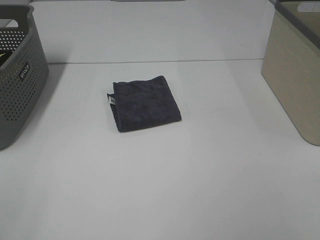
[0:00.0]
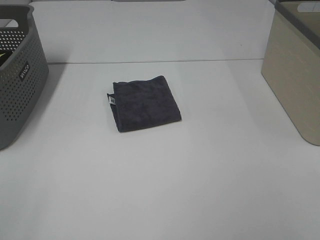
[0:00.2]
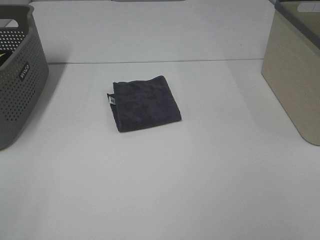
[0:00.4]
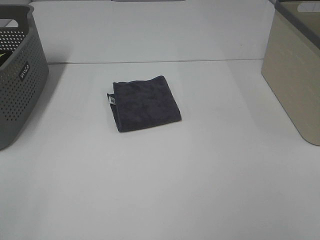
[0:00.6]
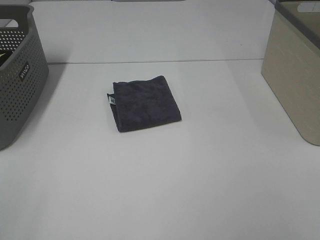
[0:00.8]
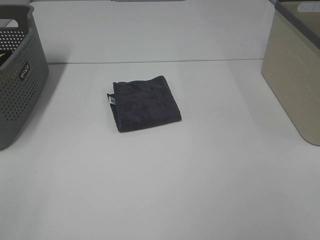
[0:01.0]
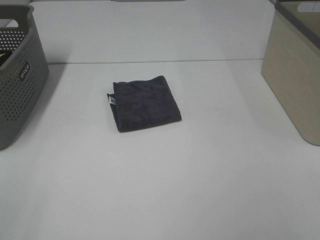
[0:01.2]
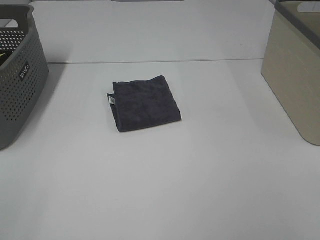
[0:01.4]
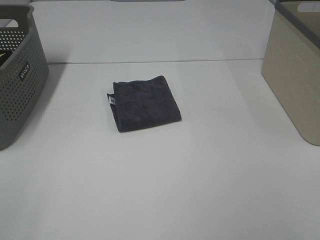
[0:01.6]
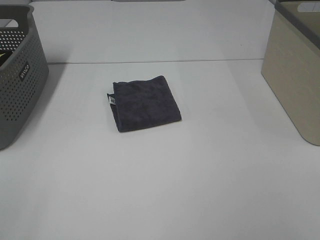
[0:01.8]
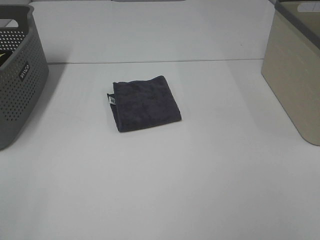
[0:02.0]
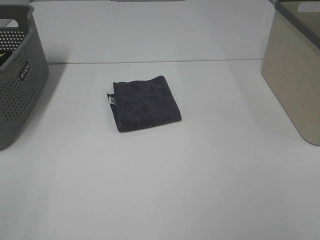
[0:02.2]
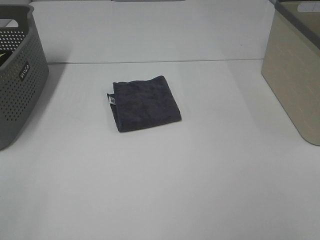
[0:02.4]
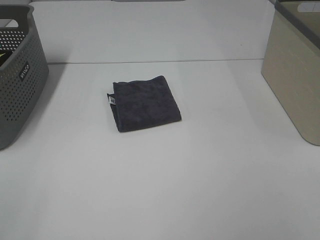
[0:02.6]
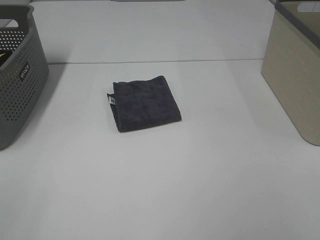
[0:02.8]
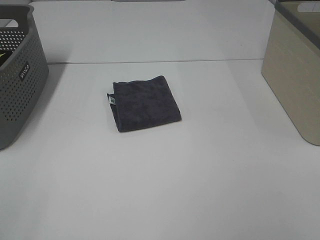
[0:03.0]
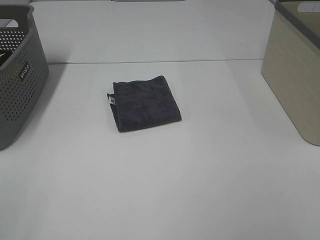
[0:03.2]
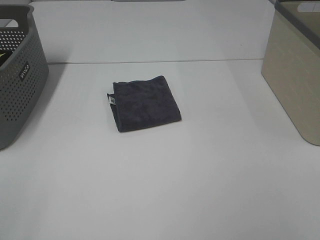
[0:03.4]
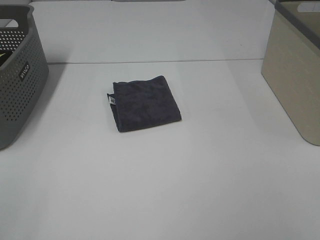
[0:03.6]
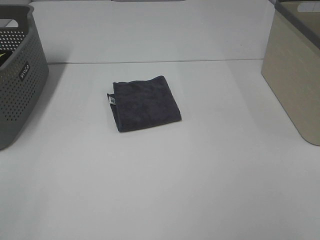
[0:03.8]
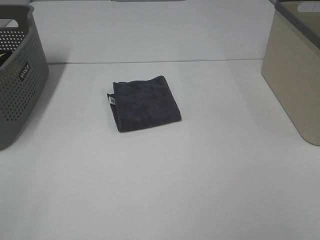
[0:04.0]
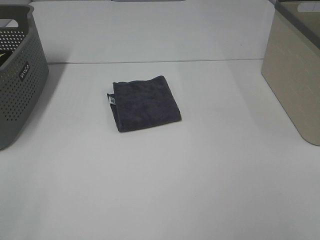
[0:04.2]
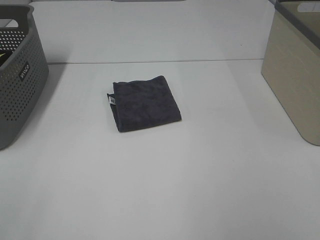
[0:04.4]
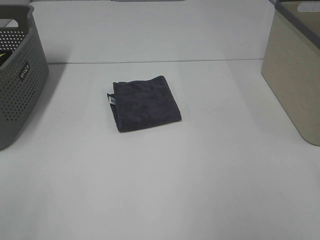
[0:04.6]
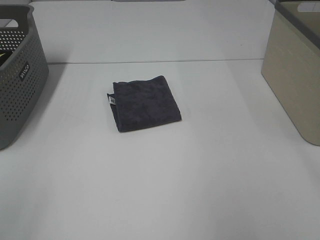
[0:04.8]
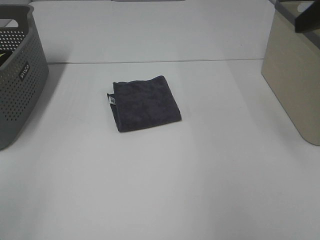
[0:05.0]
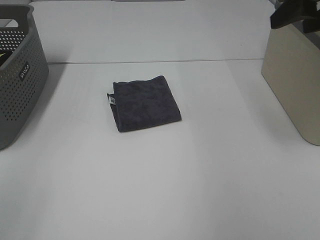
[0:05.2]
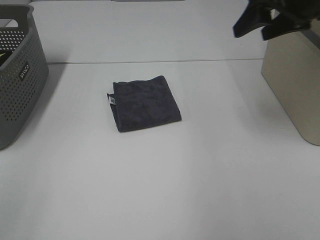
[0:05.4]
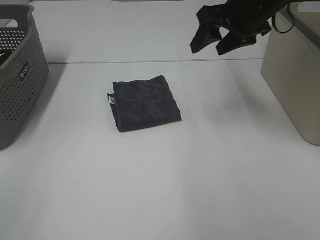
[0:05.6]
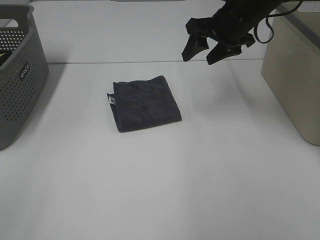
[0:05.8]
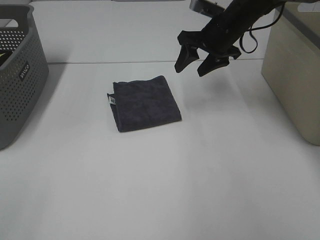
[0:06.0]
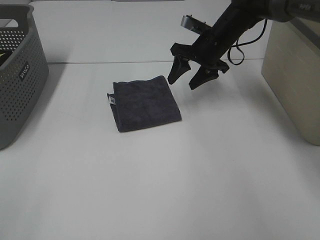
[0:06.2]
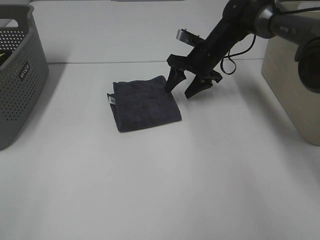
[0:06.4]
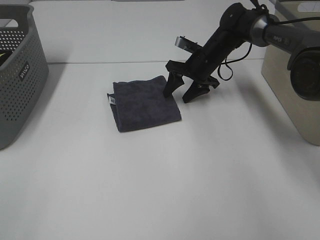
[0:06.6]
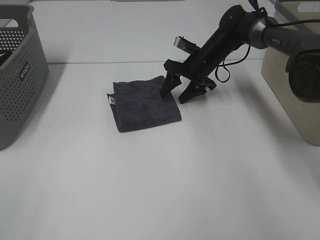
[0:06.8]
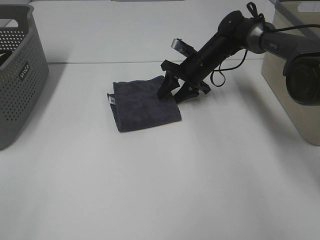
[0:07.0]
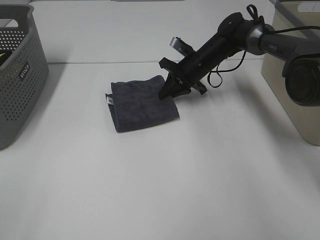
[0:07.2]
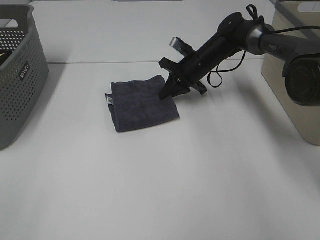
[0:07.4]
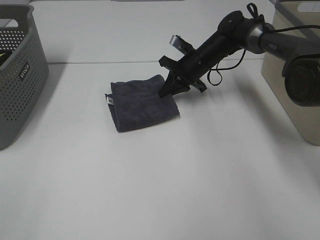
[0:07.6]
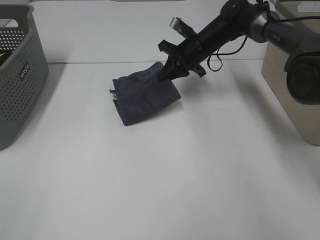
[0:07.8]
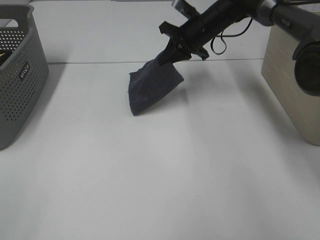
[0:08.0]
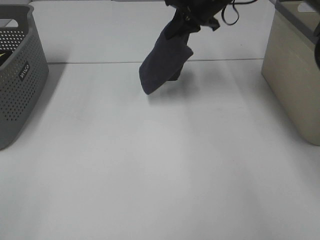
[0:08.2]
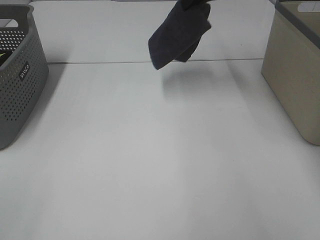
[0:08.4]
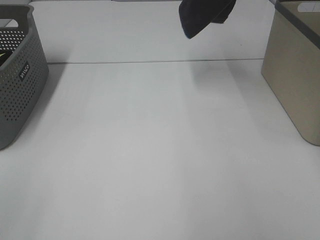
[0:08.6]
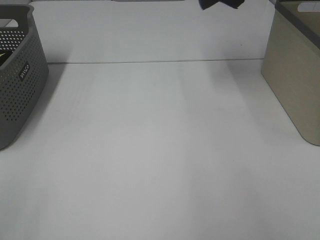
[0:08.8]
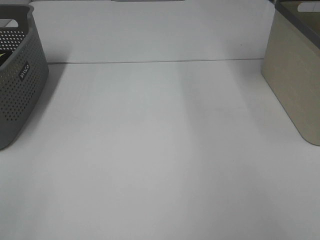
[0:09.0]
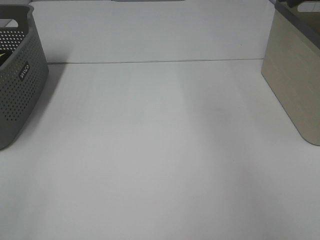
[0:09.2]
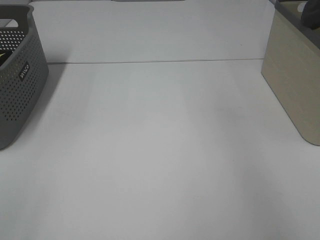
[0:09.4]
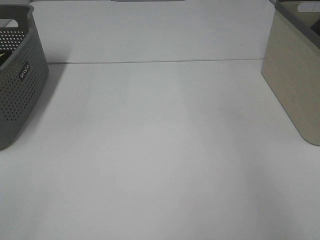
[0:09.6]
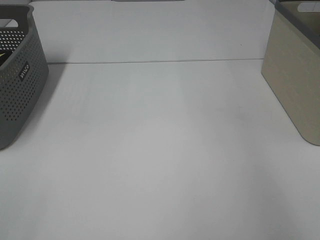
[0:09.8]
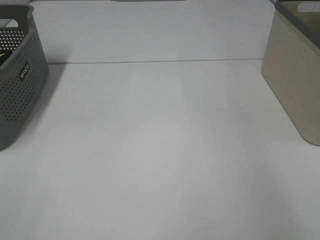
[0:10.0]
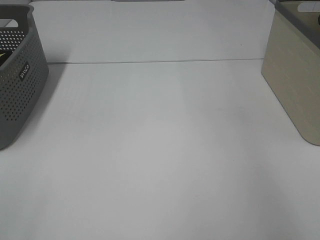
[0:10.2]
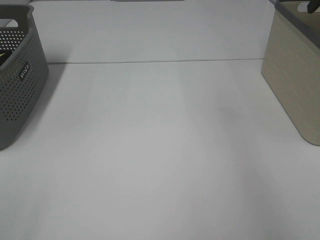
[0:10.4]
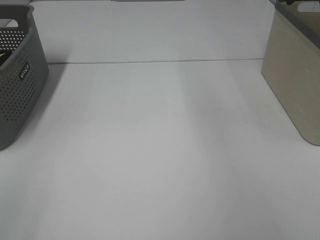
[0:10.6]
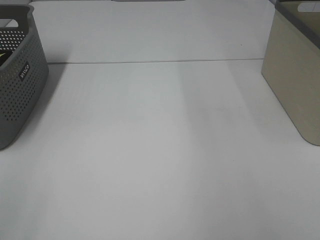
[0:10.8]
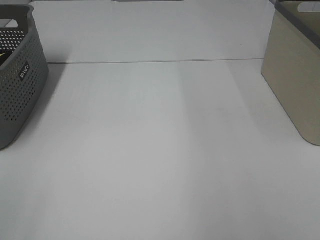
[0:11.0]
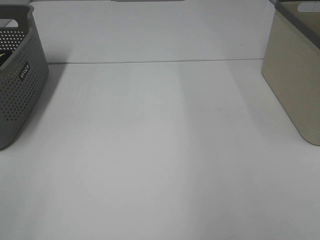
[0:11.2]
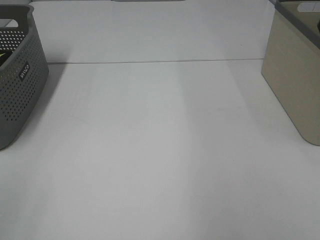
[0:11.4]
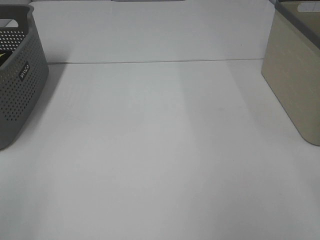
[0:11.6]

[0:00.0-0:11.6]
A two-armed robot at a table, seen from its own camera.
Step, 0.0 to 7.2 s: Right hand: grab the folded grey towel.
Step, 7.4 to 10.2 s: Right hand: place the grey towel in right basket.
0.0 to 2.8 s: Neither gripper changes place.
4.4 to 5.8 s: The right gripper travels forward by about 35 cm.
5.8 to 7.2 s: The right gripper travels downward and forward by approximately 15 cm, and closes.
7.2 to 8.8 s: The right gripper shifts roughly 35 cm upward.
8.8 to 10.2 s: The right gripper heads to the right and downward, covering approximately 20 cm, and opens its fingers.

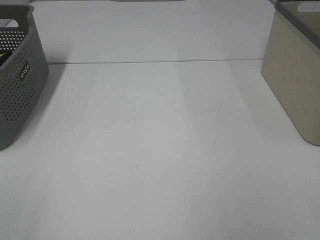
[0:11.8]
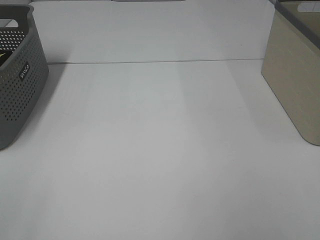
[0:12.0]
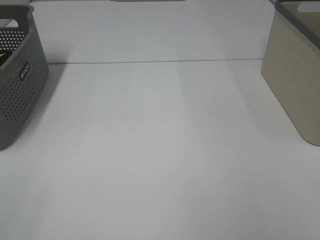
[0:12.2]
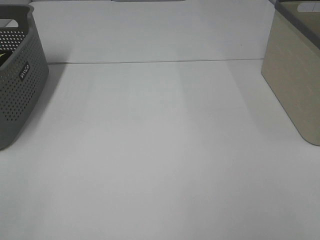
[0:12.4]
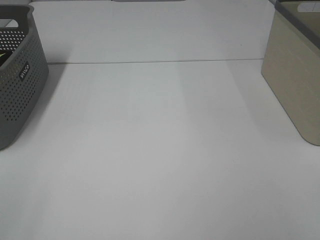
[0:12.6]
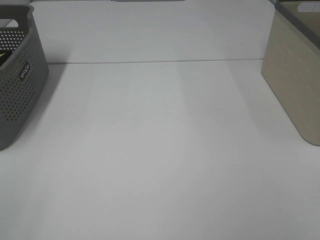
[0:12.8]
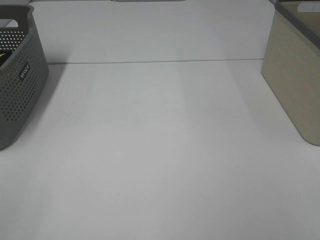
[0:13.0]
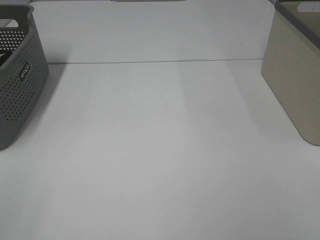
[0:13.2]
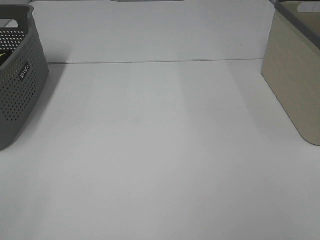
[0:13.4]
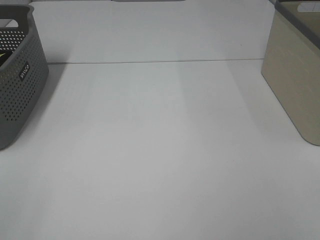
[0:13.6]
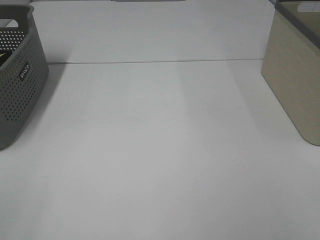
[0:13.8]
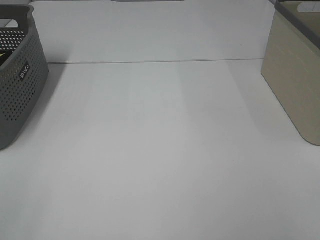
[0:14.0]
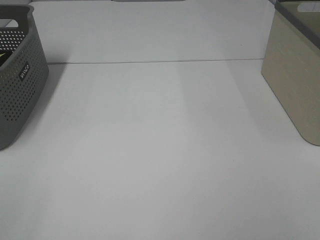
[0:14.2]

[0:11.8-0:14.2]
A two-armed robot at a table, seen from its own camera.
13.0 to 14.2 s: Both grippers stay put.

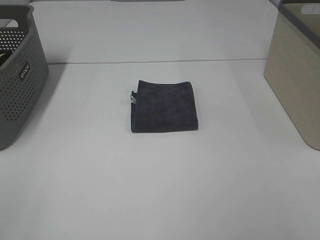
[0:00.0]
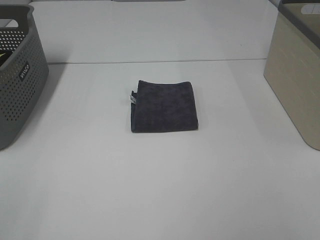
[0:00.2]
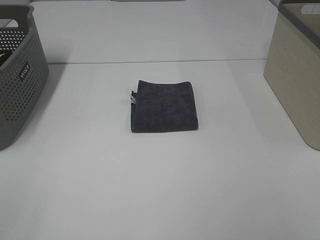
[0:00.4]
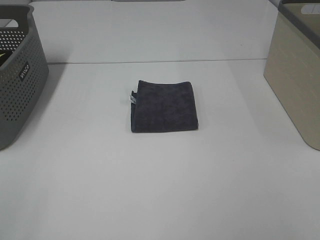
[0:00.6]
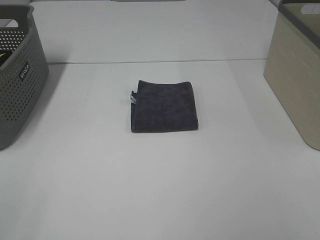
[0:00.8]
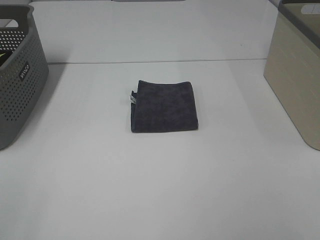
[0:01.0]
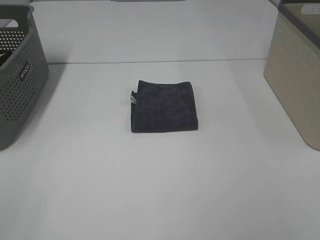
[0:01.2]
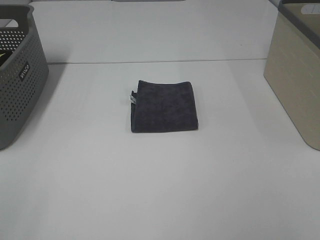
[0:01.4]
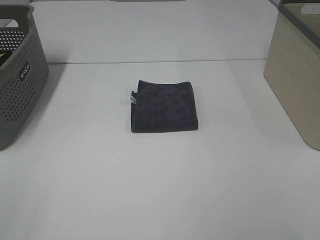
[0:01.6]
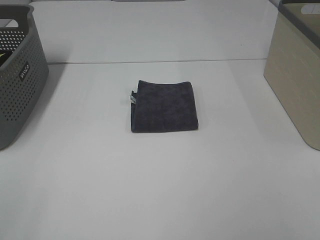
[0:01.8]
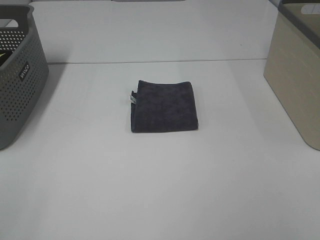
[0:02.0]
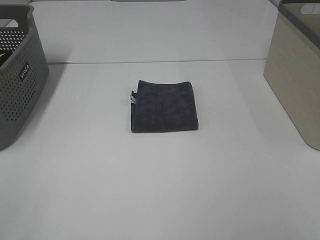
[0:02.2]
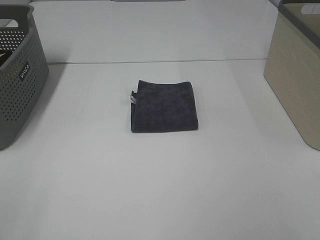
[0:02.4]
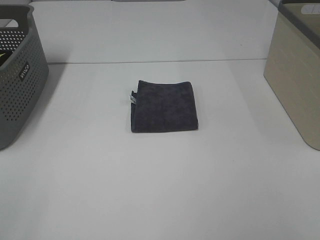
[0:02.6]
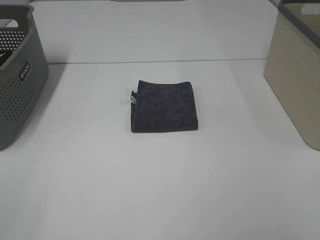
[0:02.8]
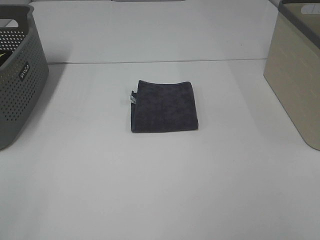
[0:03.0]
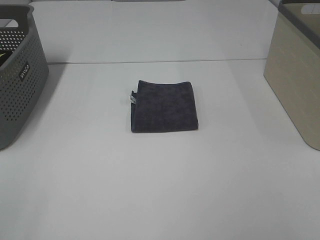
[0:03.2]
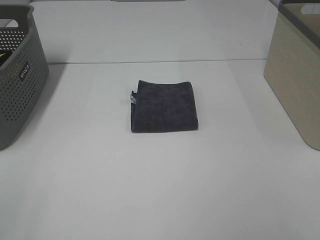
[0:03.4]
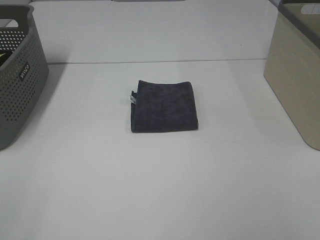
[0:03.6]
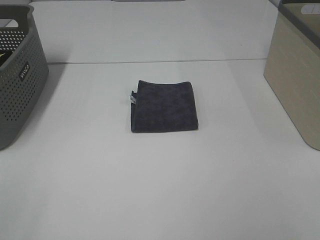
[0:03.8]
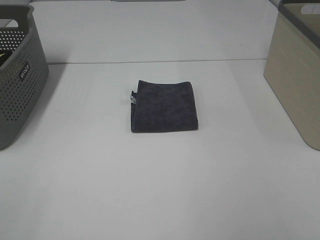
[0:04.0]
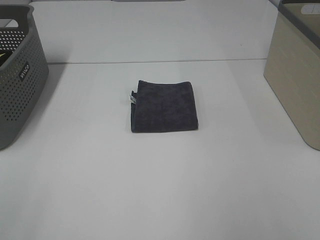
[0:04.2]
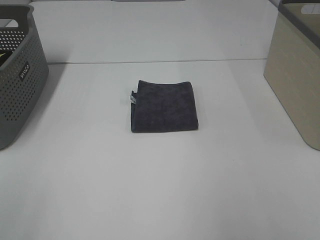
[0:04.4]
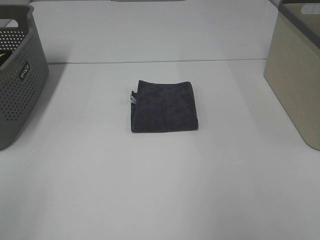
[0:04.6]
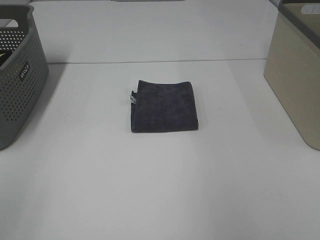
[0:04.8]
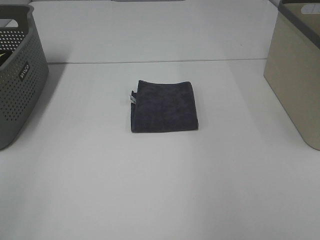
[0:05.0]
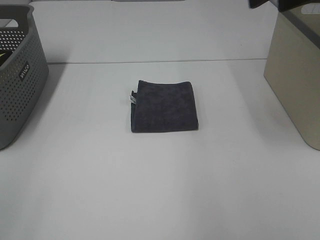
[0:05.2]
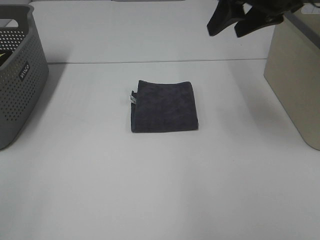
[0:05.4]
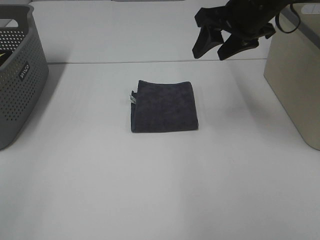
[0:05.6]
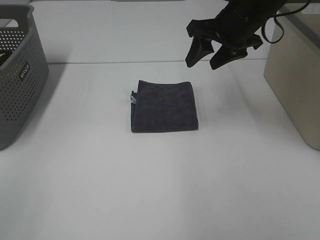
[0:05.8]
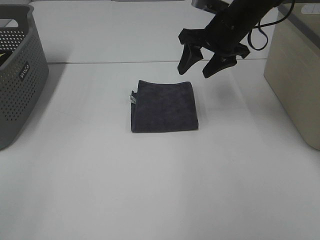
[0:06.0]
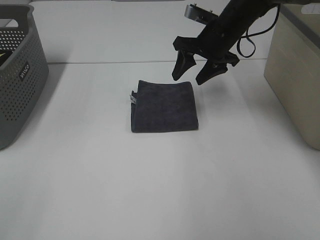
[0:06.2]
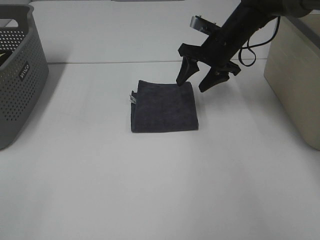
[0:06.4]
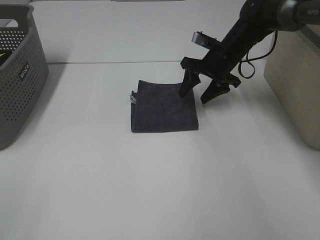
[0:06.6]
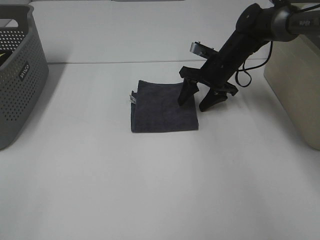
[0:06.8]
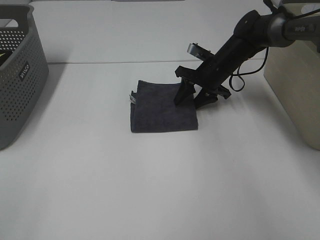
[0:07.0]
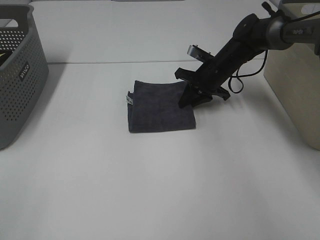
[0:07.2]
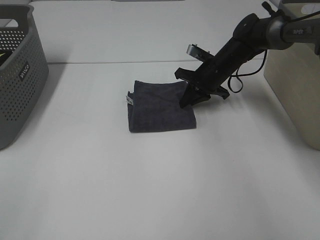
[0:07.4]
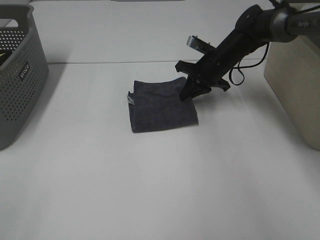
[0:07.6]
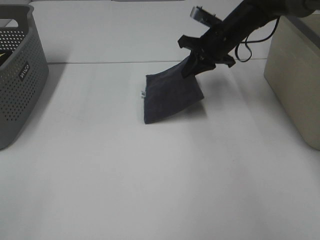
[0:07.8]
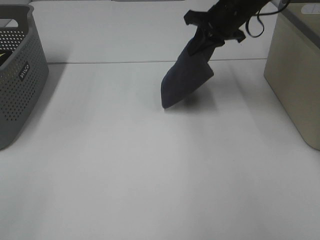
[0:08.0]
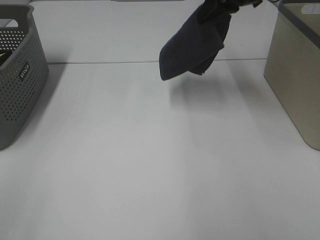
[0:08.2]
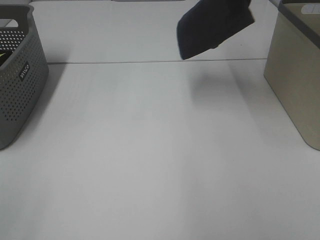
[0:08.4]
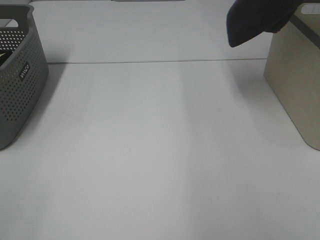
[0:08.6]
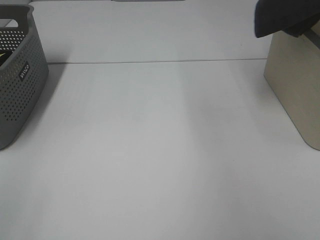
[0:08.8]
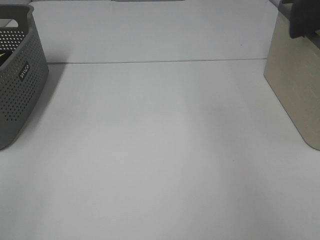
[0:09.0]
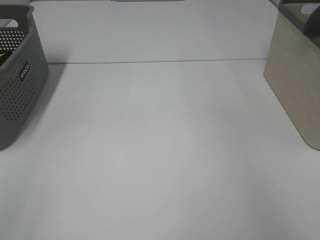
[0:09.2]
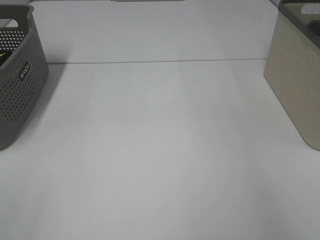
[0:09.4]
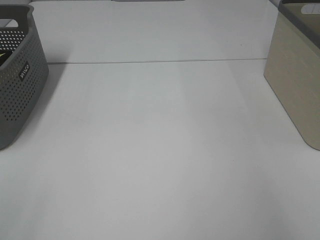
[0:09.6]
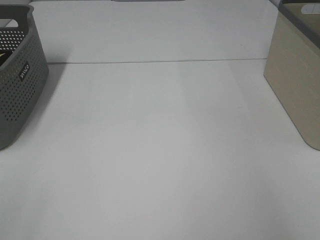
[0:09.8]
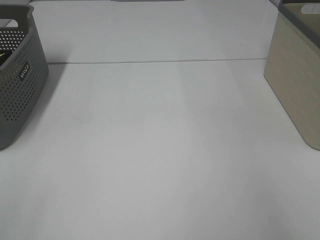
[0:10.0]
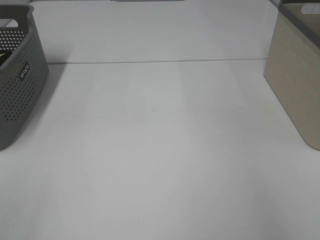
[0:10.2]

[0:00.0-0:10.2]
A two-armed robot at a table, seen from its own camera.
Step, 0.0 to 7.4 s: Right hand: grab the folded grey towel.
Step, 7.6 to 9.8 s: Right hand: place the grey towel in right basket.
0.0 to 3.0 s: Neither gripper changes place.
4.4 to 5.8 s: The right gripper shifts some 35 cm forward, to the left and downward.
5.8 to 7.2 s: The right gripper travels downward and forward by roughly 15 cm, and closes.
7.2 to 8.8 s: The right gripper shifts some 35 cm upward and to the right.
8.8 to 10.2 s: The right gripper heads to the right and downward, covering roughly 10 cm, and opens up.
